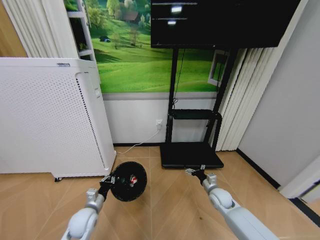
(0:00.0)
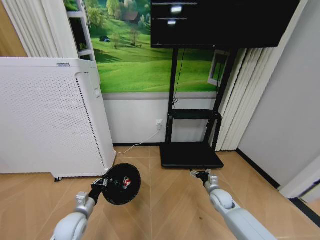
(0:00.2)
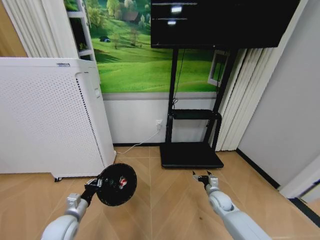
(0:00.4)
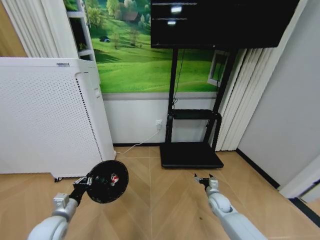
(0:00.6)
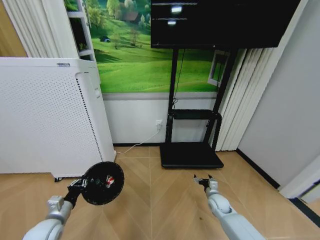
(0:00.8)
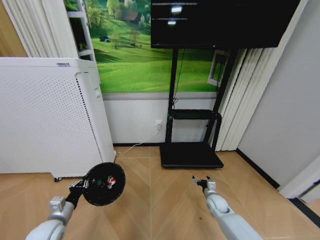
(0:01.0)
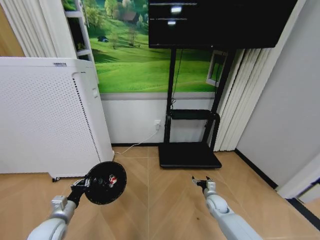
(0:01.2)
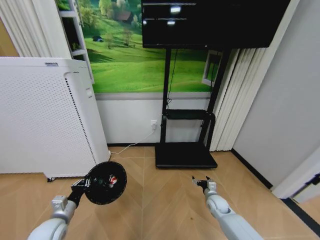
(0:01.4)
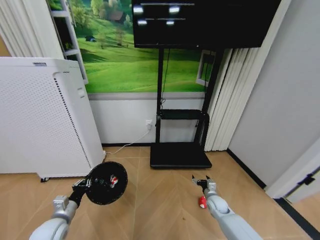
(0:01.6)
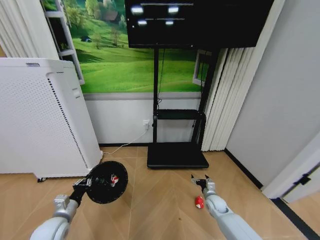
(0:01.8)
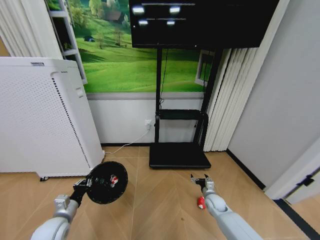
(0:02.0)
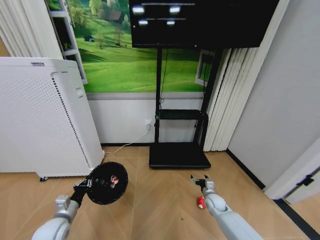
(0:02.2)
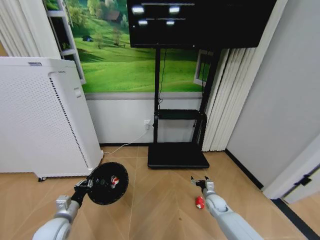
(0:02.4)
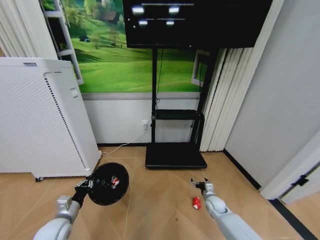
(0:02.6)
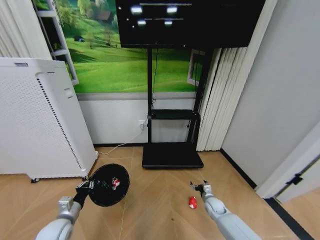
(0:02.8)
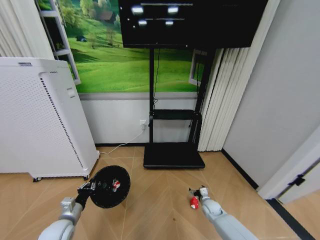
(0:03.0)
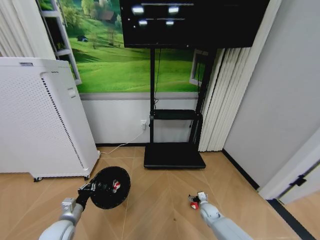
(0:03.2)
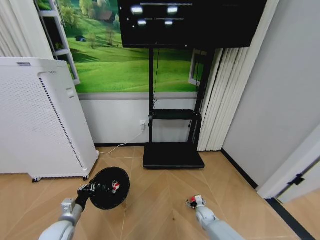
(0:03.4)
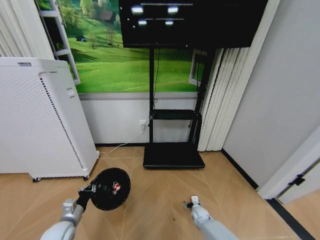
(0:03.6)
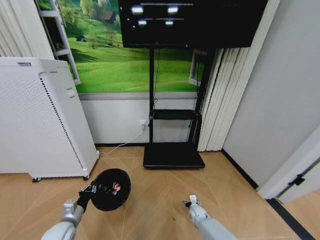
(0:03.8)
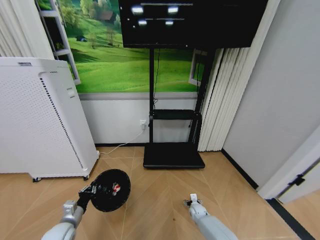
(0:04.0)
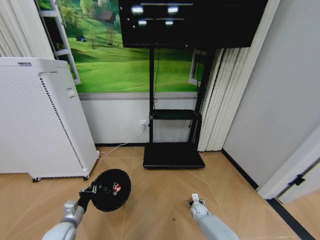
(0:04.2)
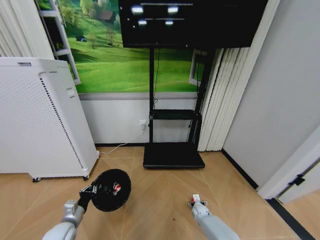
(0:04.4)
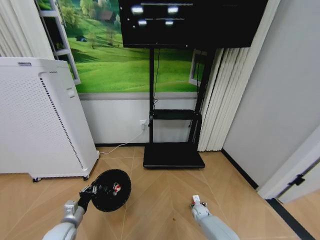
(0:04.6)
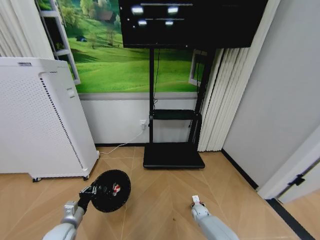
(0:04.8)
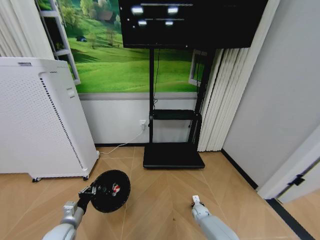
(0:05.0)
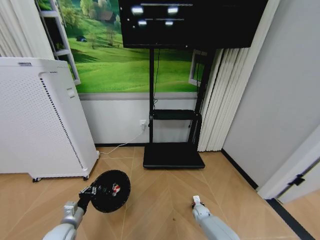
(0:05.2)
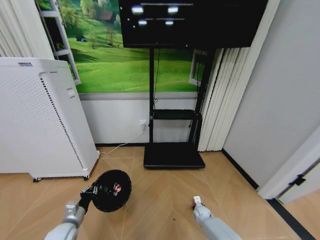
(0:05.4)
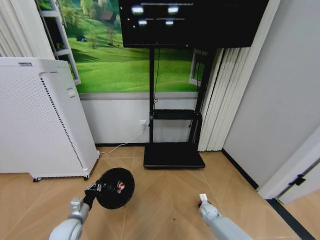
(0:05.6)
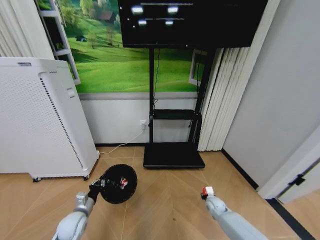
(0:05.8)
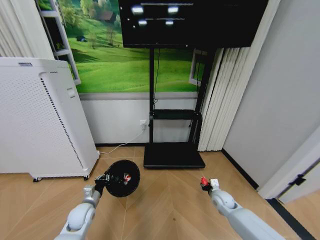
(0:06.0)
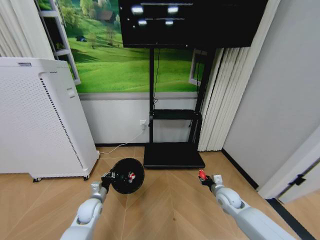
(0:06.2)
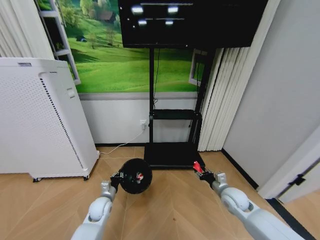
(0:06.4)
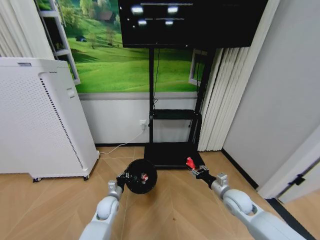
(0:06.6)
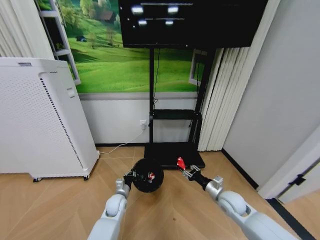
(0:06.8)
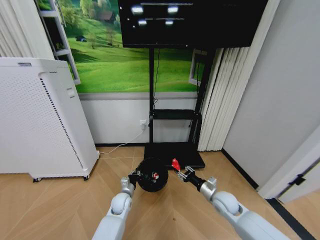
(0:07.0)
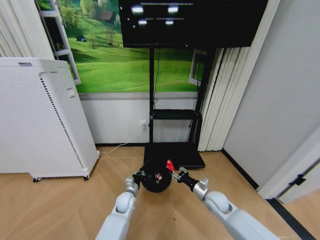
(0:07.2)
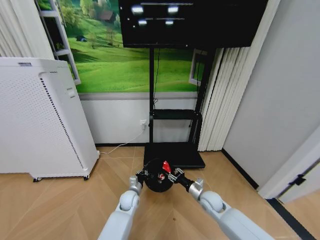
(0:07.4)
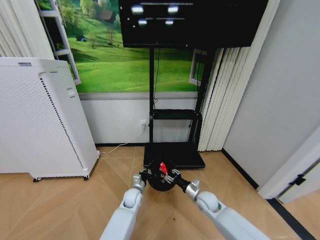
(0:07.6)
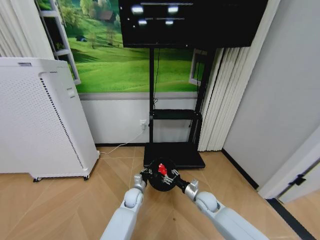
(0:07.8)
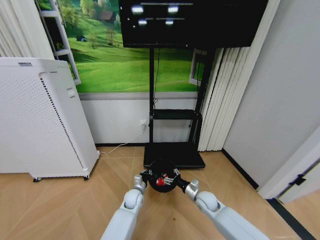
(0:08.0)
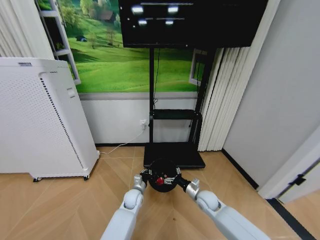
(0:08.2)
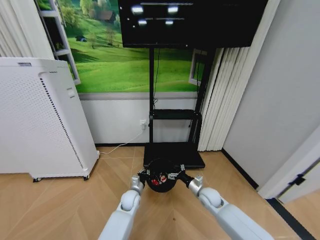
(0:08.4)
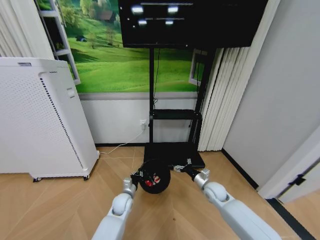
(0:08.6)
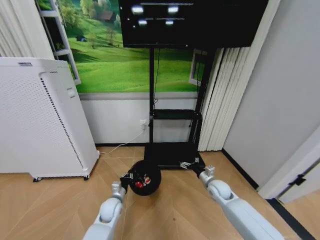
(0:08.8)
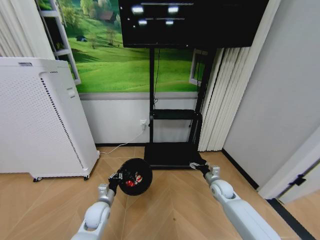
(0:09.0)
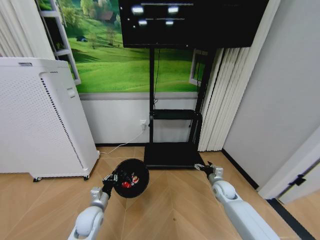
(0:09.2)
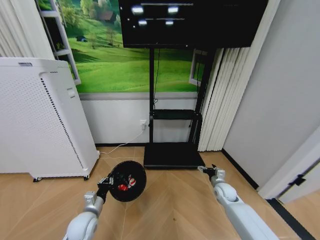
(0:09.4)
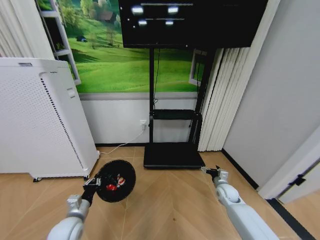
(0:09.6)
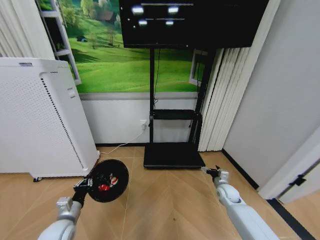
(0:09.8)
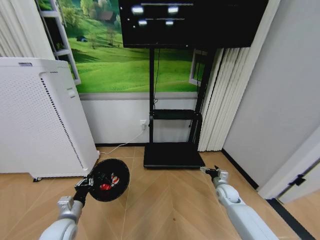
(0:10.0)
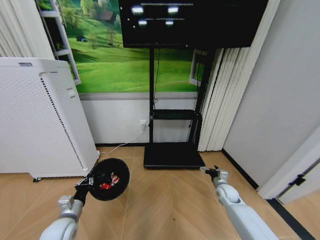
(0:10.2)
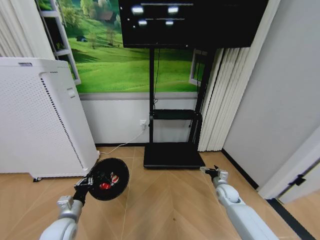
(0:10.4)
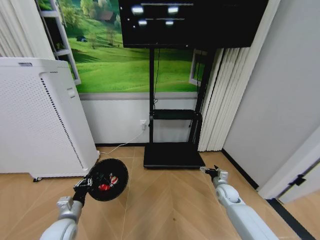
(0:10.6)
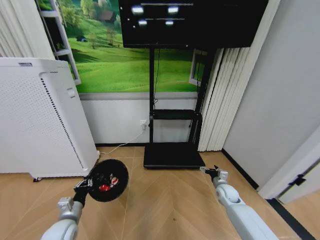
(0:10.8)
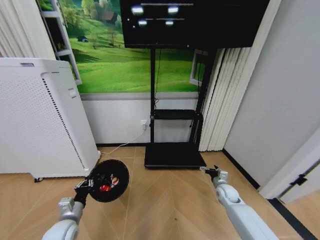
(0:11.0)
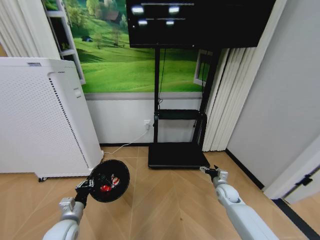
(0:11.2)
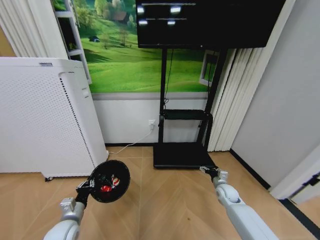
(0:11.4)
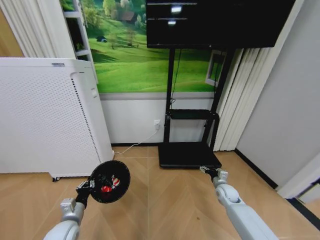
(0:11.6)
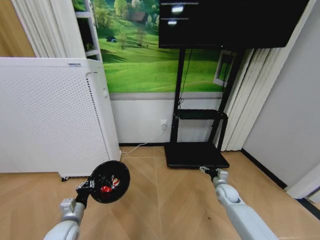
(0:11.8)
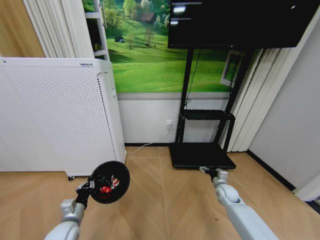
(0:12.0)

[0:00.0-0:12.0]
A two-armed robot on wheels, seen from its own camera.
Task of the whole recording: Pick up the trash bin and place the garbage on the floor into it.
0:00.0 to 0:01.6: The right gripper moves downward, about 5 cm. Meanwhile the left gripper goes approximately 10 cm to the left and backward.
0:01.6 to 0:03.0: The right gripper travels downward by approximately 5 cm.
0:03.0 to 0:04.4: The right gripper is displaced downward by roughly 5 cm.
0:04.4 to 0:06.0: The left gripper is displaced forward by about 5 cm. Meanwhile the right gripper goes roughly 15 cm upward, and closes.
0:06.0 to 0:07.6: The left gripper travels to the right and forward by some 25 cm; the right gripper goes approximately 10 cm to the left, and reaches about 10 cm upward, then returns.
0:07.6 to 0:09.0: The left gripper moves to the left and backward, approximately 15 cm. The right gripper goes about 10 cm to the right, and opens its fingers.
0:09.0 to 0:10.4: The left gripper shifts roughly 15 cm to the left, backward and upward, while the right gripper shifts by about 5 cm.

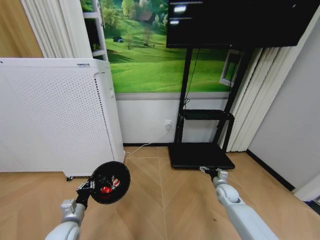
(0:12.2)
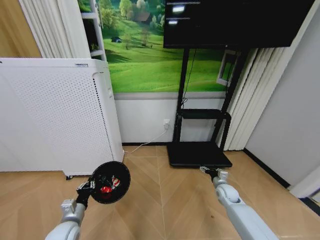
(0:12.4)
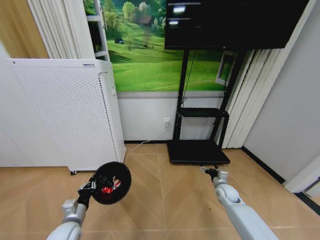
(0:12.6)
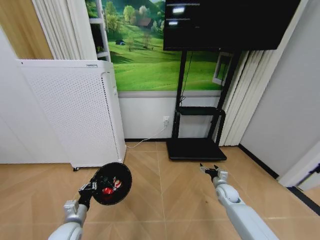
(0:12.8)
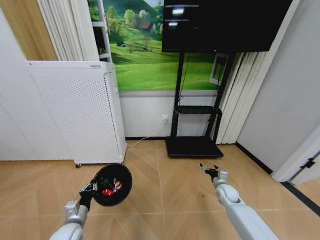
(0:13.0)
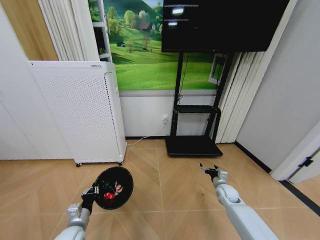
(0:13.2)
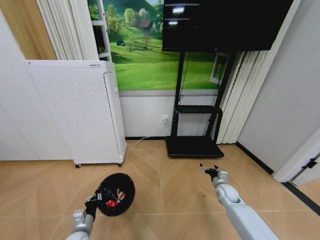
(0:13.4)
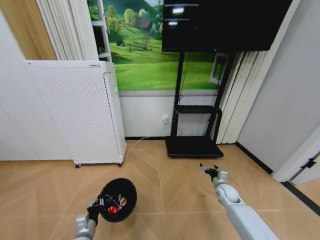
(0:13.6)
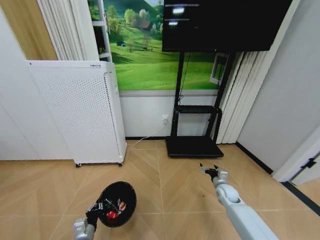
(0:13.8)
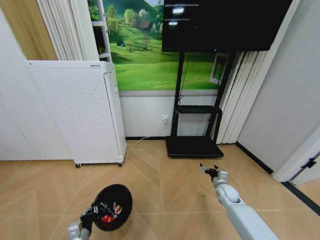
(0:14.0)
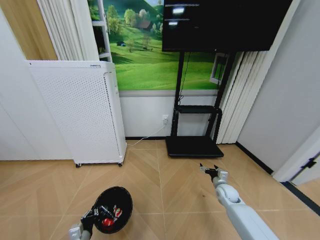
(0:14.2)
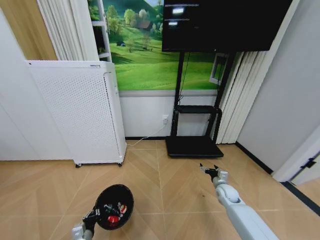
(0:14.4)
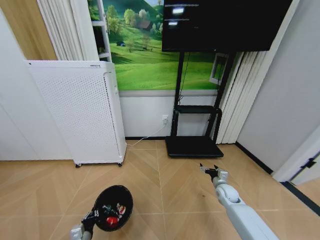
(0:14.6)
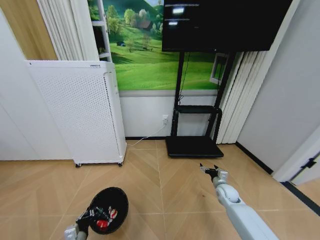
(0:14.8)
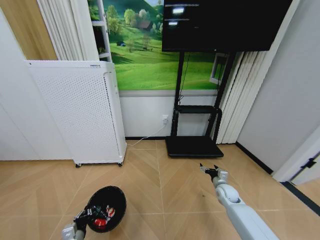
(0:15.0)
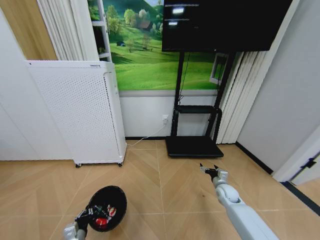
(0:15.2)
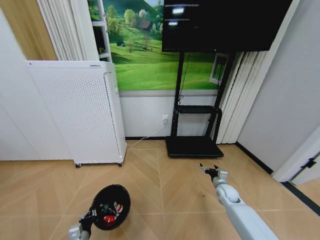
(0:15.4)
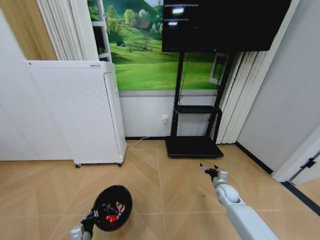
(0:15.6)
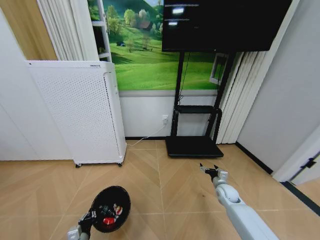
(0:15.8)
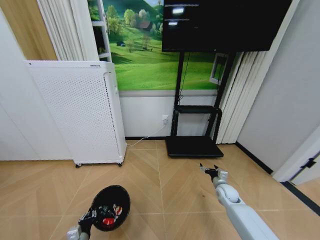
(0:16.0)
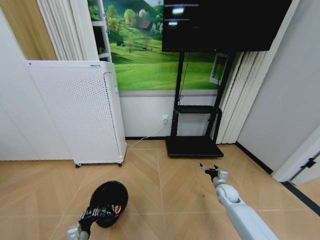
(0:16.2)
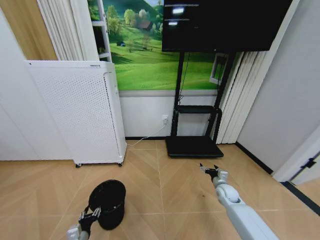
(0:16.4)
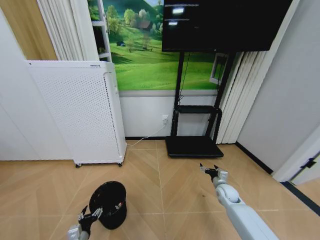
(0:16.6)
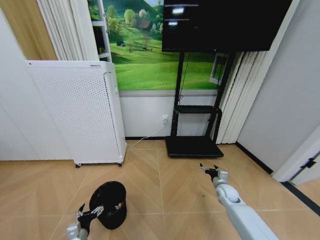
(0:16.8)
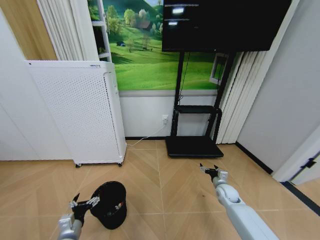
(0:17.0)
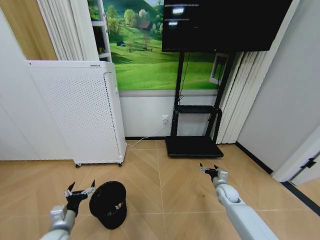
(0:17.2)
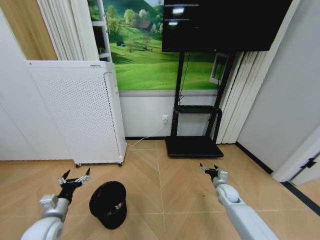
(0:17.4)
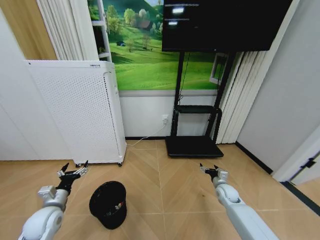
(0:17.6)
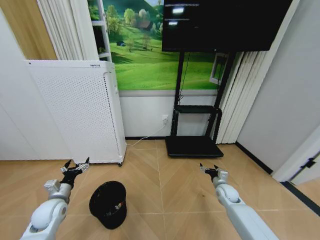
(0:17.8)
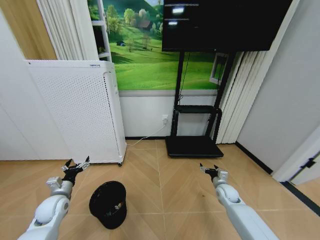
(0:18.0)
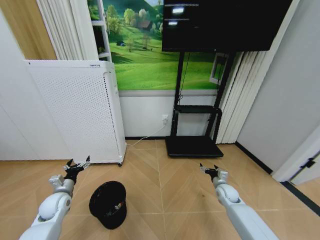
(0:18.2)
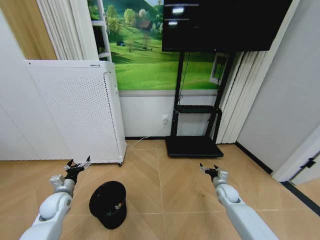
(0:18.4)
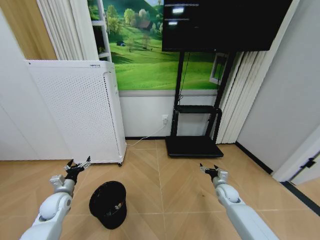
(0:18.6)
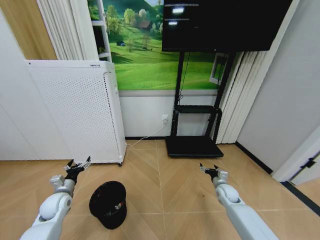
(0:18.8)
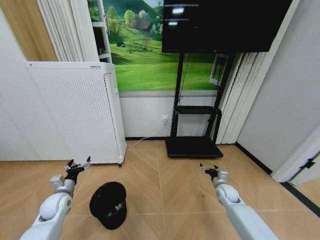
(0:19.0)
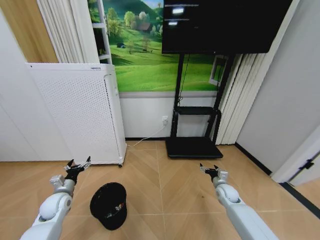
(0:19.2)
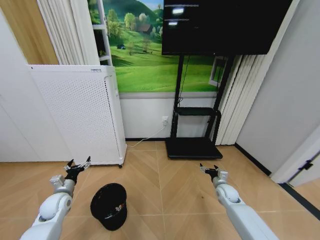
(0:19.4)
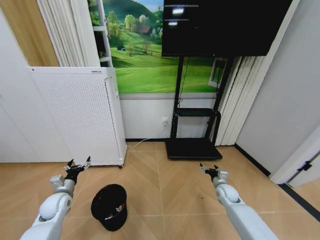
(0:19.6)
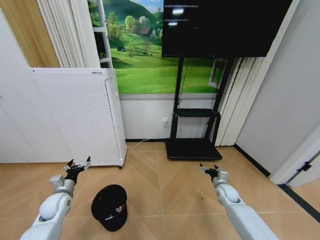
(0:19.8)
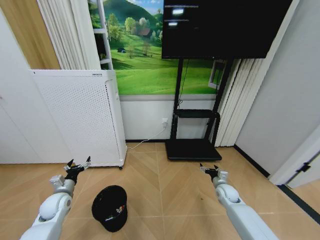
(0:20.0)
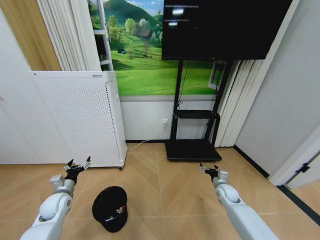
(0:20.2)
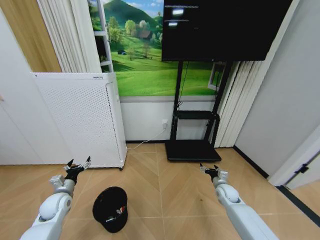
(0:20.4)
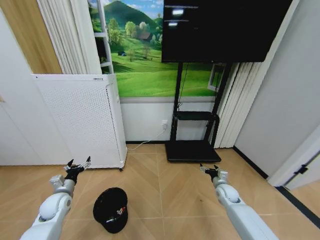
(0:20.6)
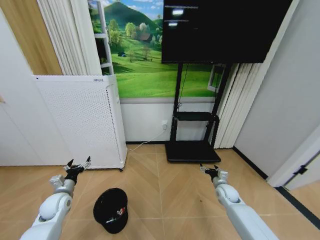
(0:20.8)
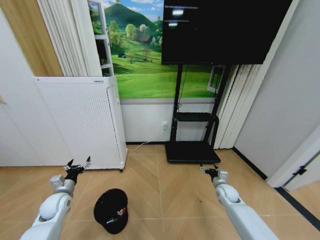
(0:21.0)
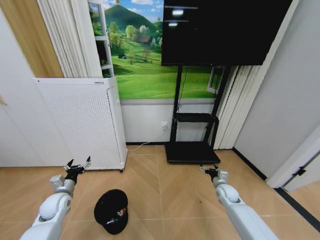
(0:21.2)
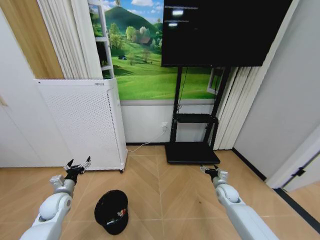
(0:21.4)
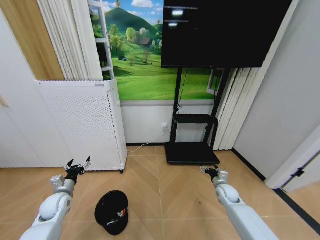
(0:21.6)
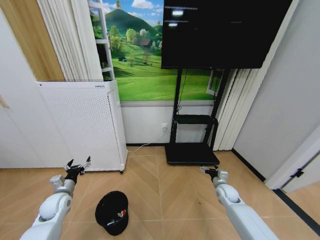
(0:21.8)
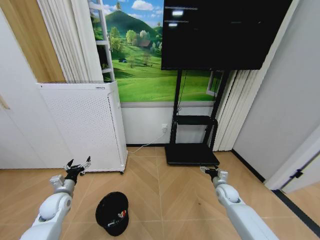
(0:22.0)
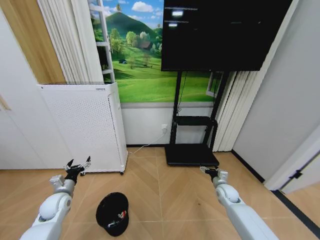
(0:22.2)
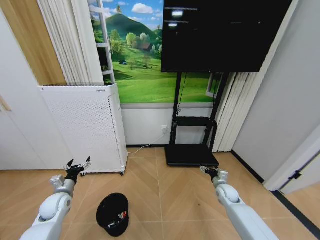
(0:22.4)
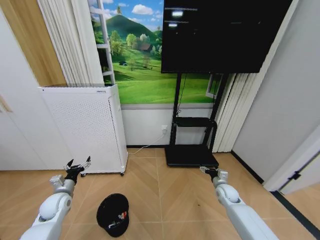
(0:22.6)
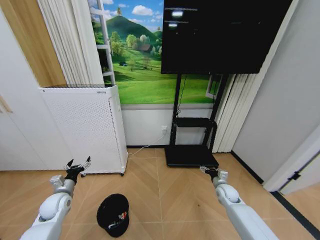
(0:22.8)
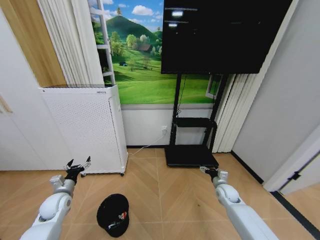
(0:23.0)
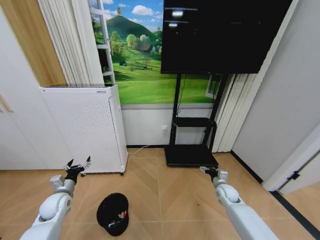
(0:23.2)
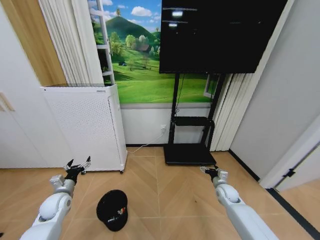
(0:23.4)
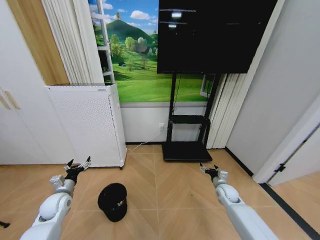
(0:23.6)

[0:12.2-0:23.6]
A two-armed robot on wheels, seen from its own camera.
Task of the whole recording: Pick up the trash bin and place the garbage on the floor into it.
0:12.2 to 0:13.6: The left gripper heads downward, covering roughly 10 cm.
0:13.6 to 0:15.0: The grippers make only small movements.
0:15.0 to 0:16.4: The left gripper opens.
0:16.4 to 0:17.8: The left gripper travels upward, forward and to the left by about 20 cm, and opens its fingers.
0:17.8 to 0:19.4: There are only small adjustments of the grippers.
0:19.4 to 0:23.6: The two grippers keep their place.
